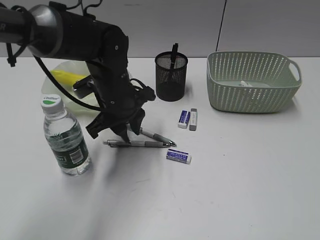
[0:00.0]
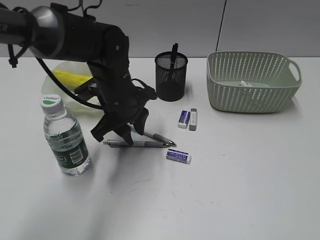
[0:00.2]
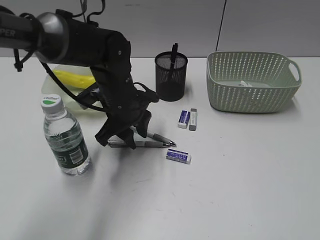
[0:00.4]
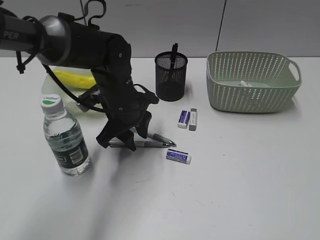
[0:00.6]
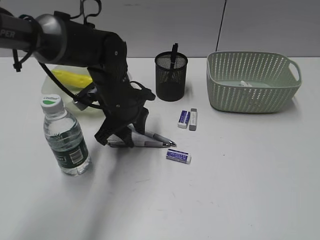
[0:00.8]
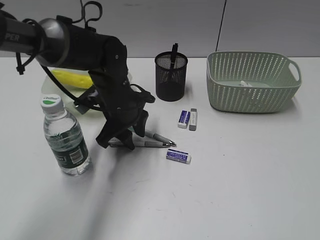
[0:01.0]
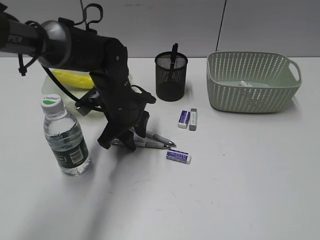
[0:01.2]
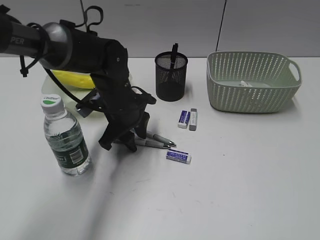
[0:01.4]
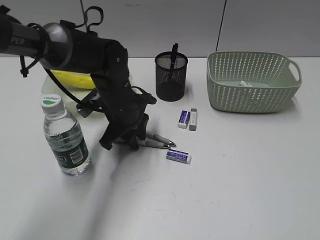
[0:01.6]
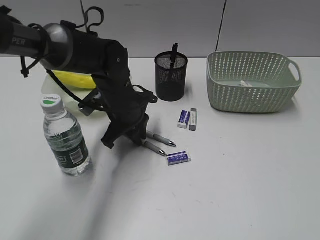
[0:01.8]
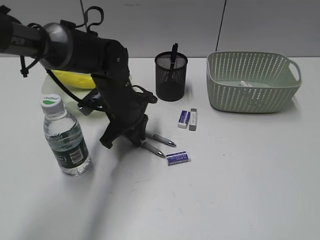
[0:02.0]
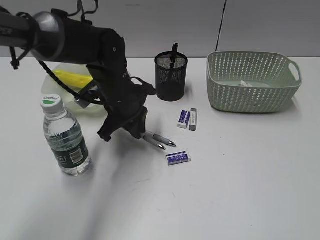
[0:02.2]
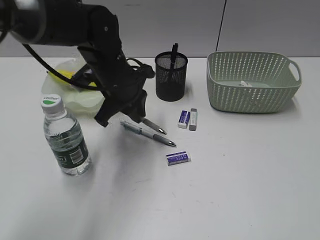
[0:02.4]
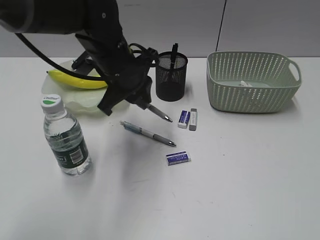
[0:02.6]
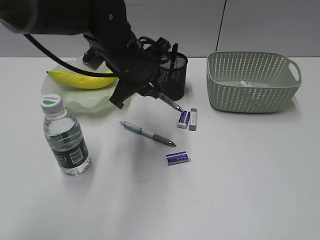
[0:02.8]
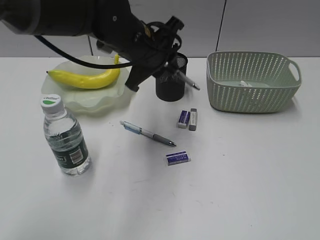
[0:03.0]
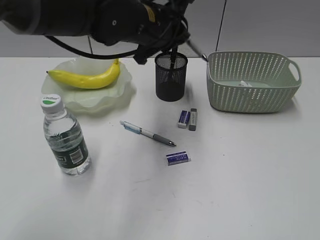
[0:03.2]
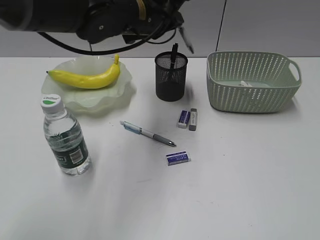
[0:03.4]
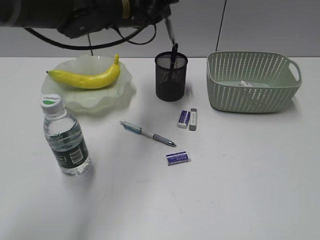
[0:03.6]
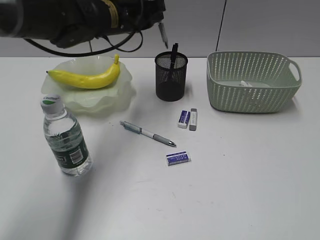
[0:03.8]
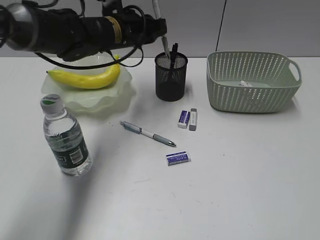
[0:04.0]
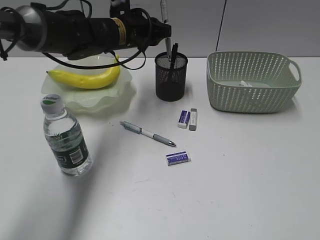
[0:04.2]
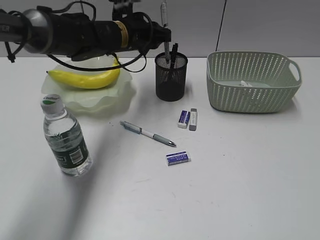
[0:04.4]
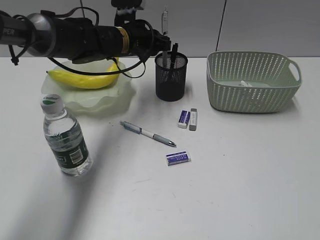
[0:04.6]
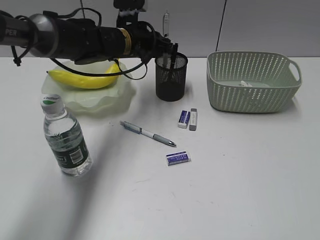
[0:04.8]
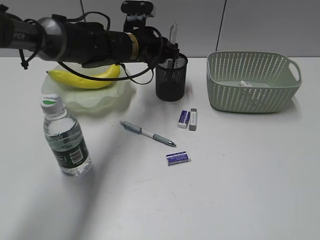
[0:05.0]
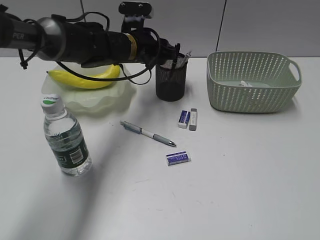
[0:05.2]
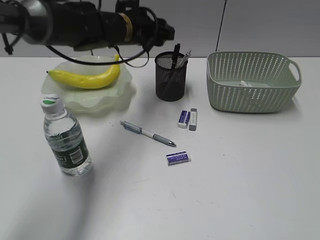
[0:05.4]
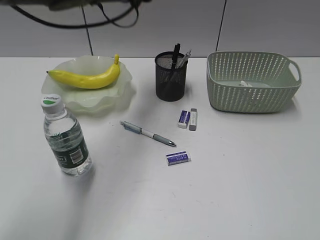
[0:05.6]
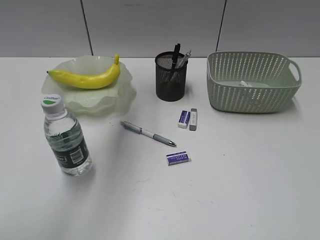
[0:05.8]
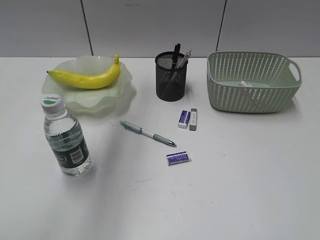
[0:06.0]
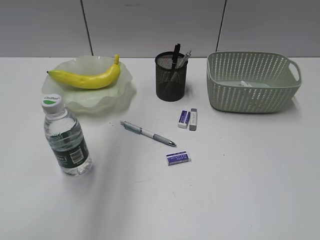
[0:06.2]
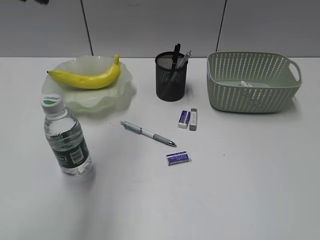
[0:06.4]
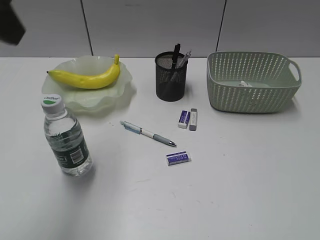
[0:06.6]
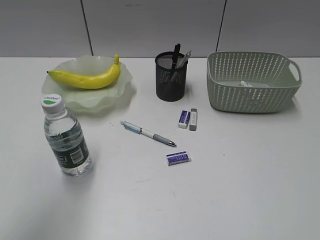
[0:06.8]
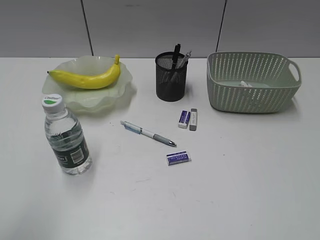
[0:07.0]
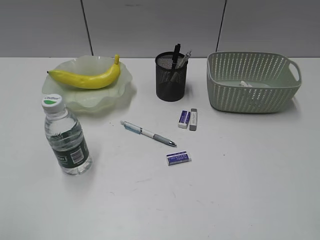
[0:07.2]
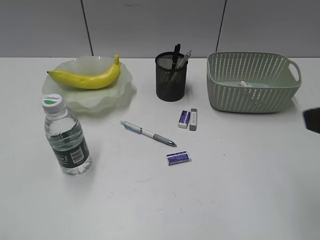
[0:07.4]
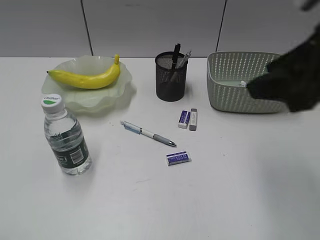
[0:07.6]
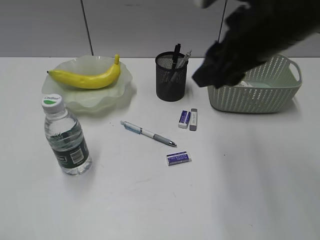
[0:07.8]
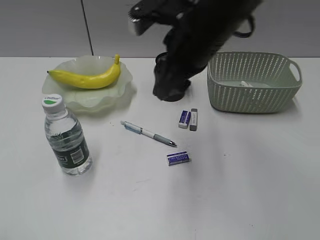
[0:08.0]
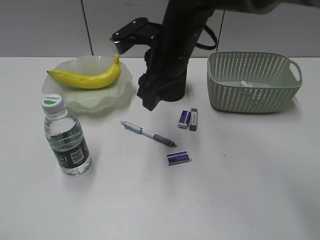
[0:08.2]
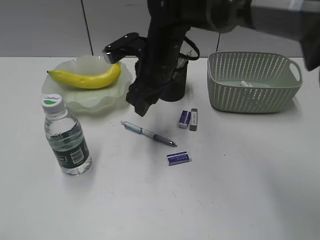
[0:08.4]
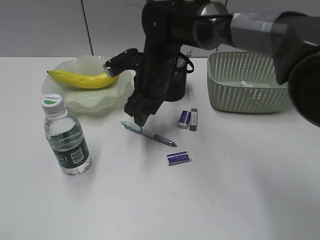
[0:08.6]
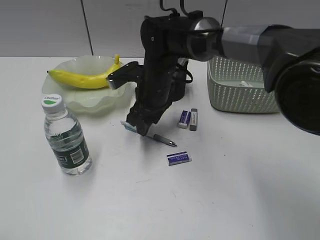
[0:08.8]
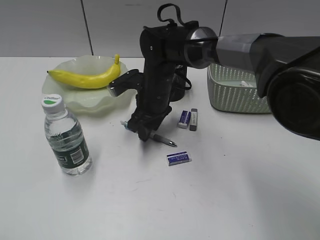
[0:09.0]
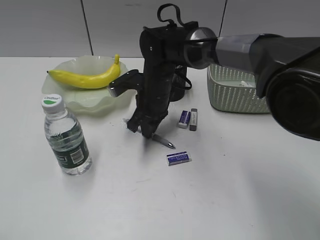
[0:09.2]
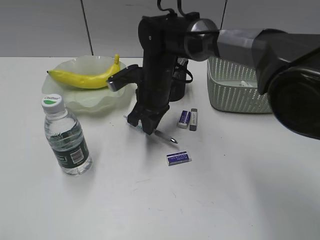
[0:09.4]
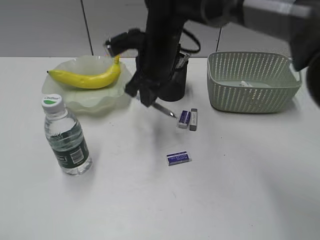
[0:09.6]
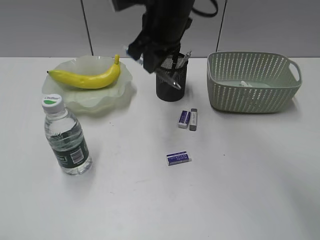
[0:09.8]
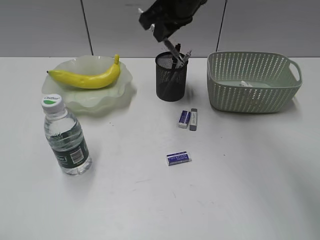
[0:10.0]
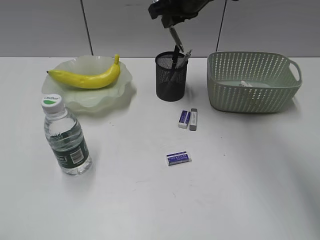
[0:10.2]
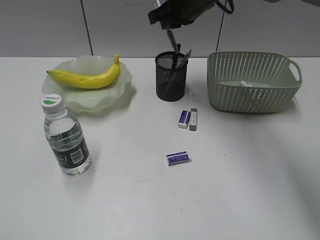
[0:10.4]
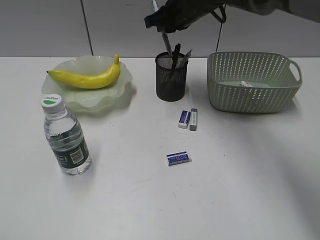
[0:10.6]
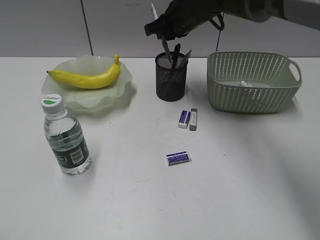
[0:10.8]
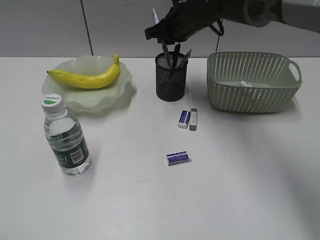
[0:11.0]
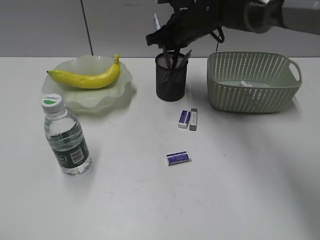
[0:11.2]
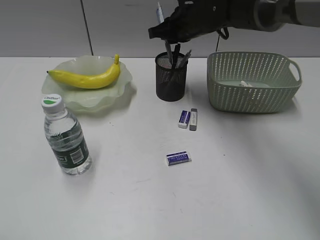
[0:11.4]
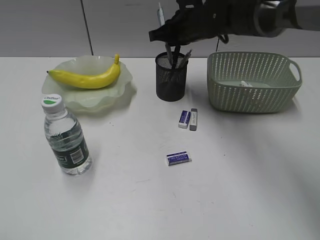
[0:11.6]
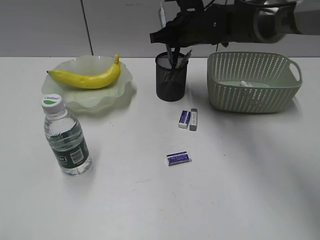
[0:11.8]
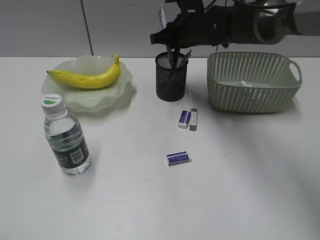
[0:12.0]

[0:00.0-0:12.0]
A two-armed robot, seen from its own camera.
Step, 2.0 to 5.2 s: Place the gray pen in pen holder with left gripper.
Step, 5.4 to 9.2 s: Grasp the blue pen with right gripper.
0.0 to 1.6 s: There are only small adjustments of the grippers.
1.6 to 3.0 s: The left gripper goes approximately 10 cm upward, and closes up.
3.0 to 4.4 s: The left gripper is displaced forward by about 10 cm.
4.4 to 6.0 s: The left gripper shifts about 25 cm upward and backward, and opens.
6.0 to 7.6 s: The left gripper heads backward and to the left, covering roughly 40 cm, while the right gripper is displaced forward and to the left by roughly 20 cm.
7.6 to 9.0 s: The right gripper heads forward, to the left and downward, covering some 40 cm.
9.0 to 10.4 s: The right gripper is displaced upward, forward and to the right by some 20 cm, and closes up.
10.4 to 12.0 s: The right gripper moves downward, roughly 5 cm.

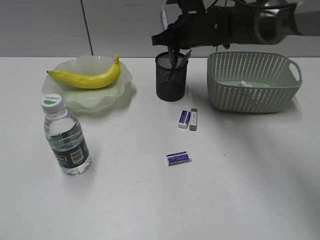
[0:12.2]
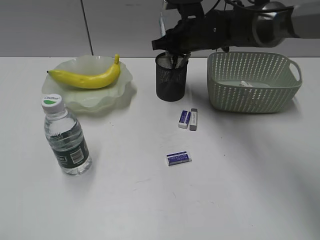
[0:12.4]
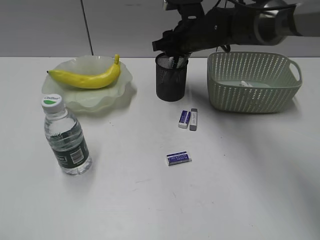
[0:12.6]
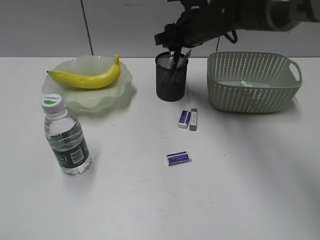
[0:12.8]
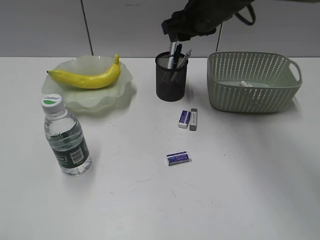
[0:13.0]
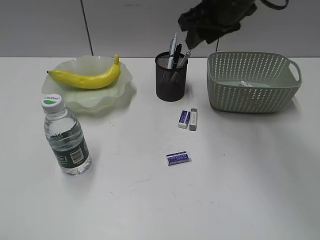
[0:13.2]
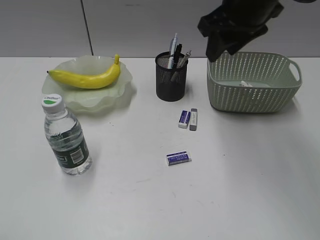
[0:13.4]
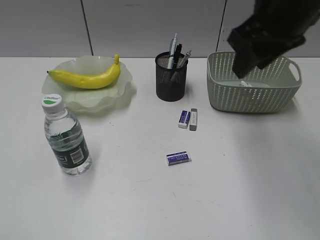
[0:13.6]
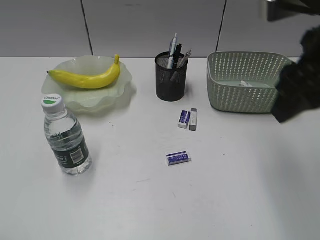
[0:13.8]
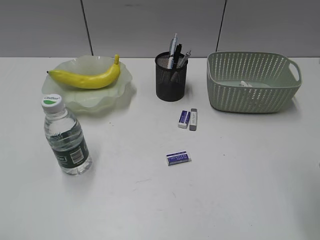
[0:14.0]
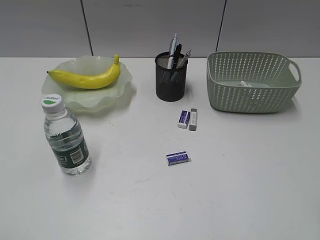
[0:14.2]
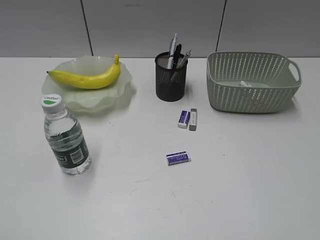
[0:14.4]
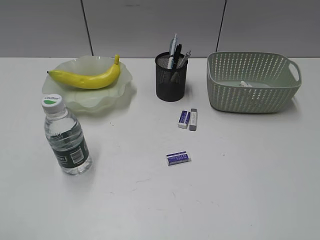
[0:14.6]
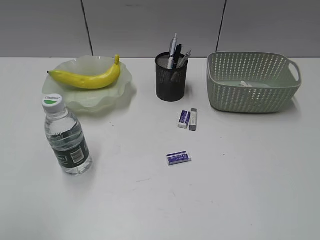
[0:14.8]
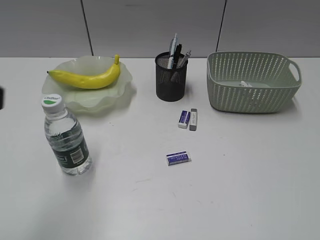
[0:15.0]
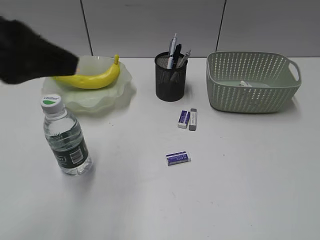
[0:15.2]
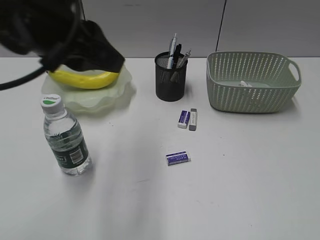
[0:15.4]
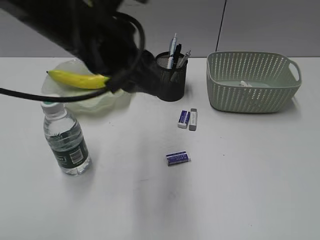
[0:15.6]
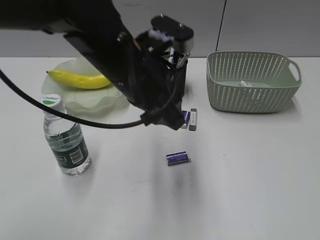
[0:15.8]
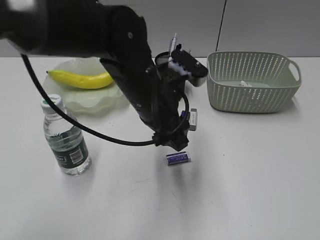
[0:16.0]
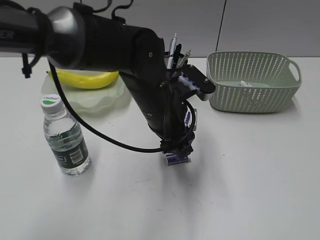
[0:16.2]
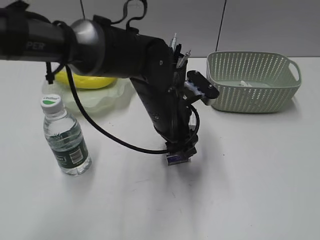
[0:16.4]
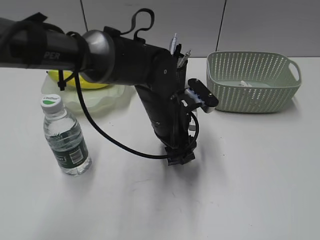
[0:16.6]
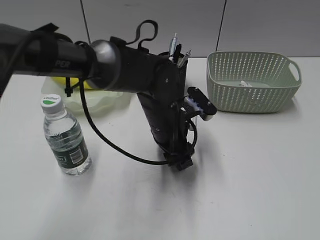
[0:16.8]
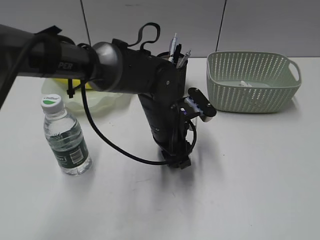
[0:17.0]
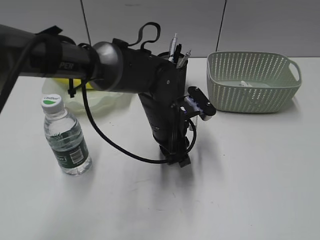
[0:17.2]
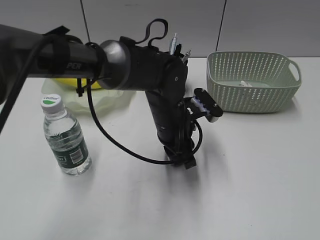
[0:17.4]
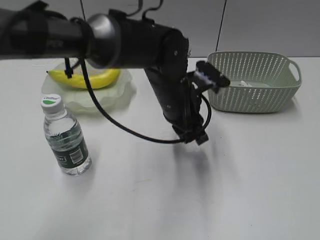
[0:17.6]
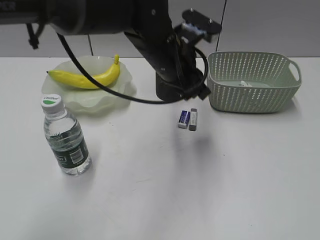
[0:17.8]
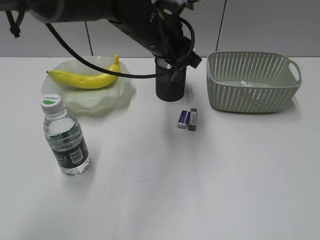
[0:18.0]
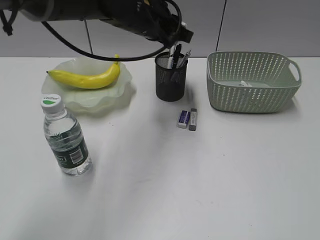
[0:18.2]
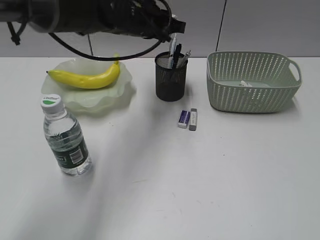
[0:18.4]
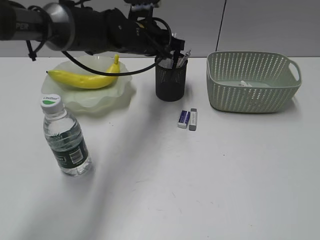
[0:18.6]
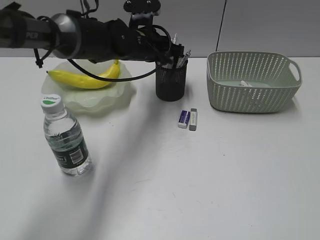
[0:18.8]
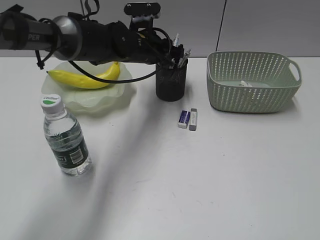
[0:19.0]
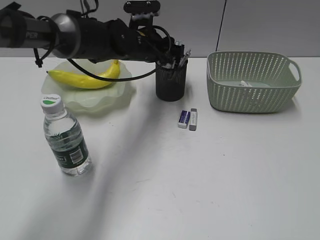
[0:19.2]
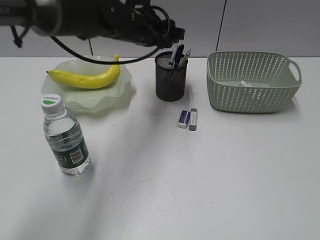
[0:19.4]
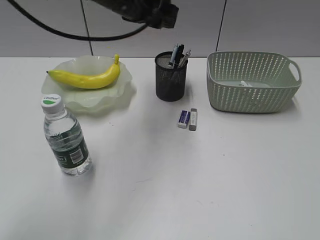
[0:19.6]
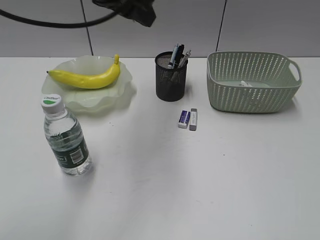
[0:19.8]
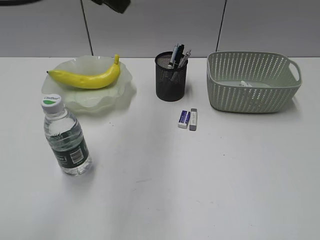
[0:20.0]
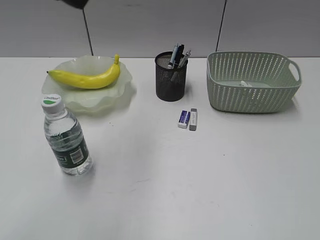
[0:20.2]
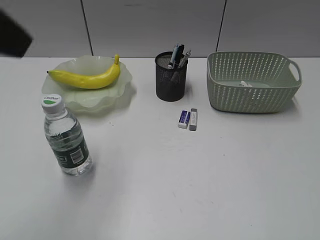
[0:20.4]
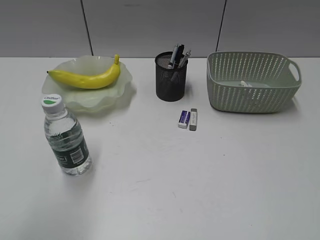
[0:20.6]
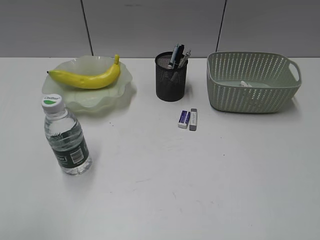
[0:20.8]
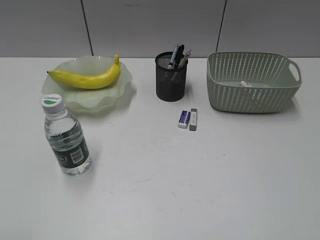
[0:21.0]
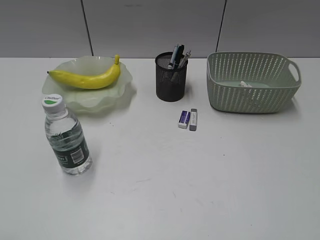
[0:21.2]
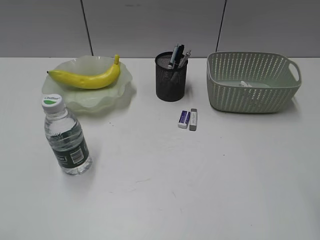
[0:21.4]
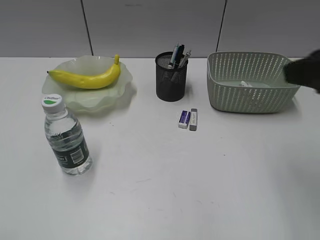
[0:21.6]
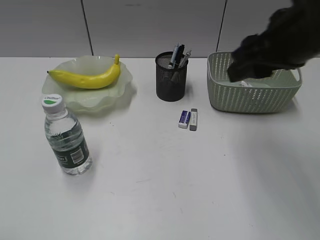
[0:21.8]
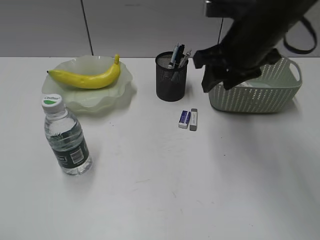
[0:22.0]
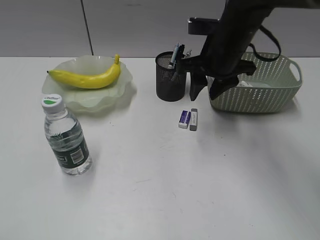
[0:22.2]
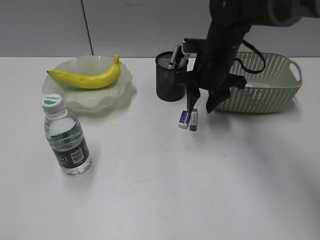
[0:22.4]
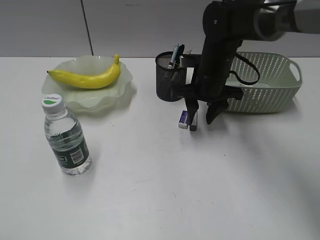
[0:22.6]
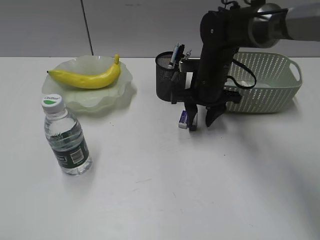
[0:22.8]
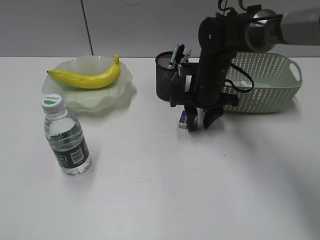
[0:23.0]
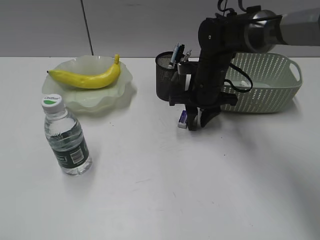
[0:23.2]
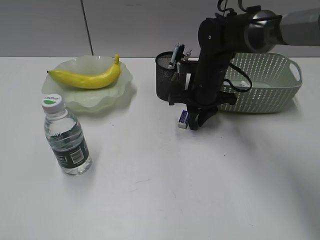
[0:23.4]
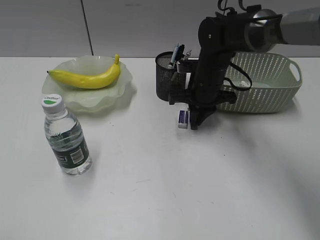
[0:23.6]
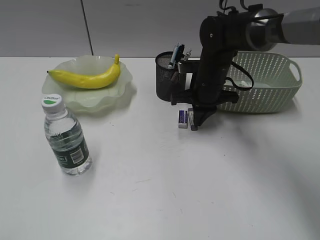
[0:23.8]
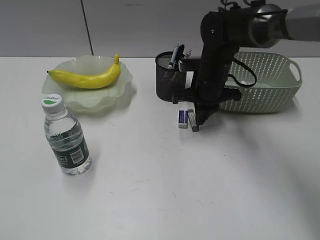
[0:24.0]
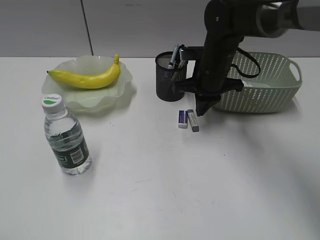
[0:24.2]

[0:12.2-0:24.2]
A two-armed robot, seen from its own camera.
Step, 12.8 to 17.2 s: Grasp the eraser with left gripper.
Step, 17.4 to 19.2 s: Place the eraser in pen holder with left gripper.
12.2 to 13.8 s: The right gripper heads backward, upward and to the right, covering about 25 cm, and opens.
13.8 to 15.2 s: The right gripper shifts some 30 cm backward and to the right; the left gripper shifts some 20 cm forward and to the right.
15.2 to 16.6 s: The left gripper travels to the right, downward and forward by about 35 cm, and opens.
16.6 to 18.2 s: The left gripper travels upward and forward by about 15 cm, and closes its fingers.
18.2 to 19.8 s: The left gripper moves upward and to the left, about 10 cm, and opens its fingers.
19.8 to 21.2 s: The left gripper is displaced backward and to the left by about 40 cm.
21.2 to 22.6 s: The right gripper heads forward, to the left and downward, covering roughly 50 cm.
22.6 to 24.2 s: The right gripper closes its fingers.
